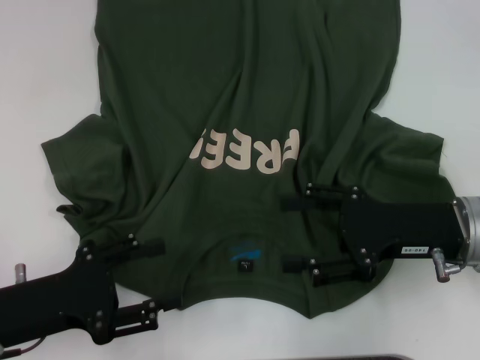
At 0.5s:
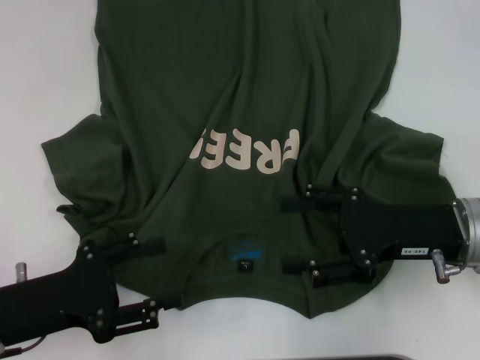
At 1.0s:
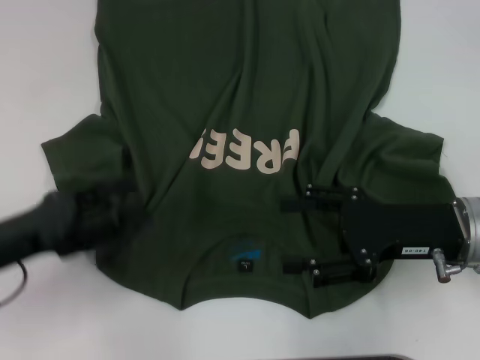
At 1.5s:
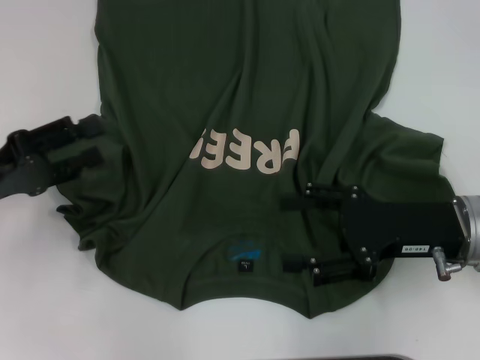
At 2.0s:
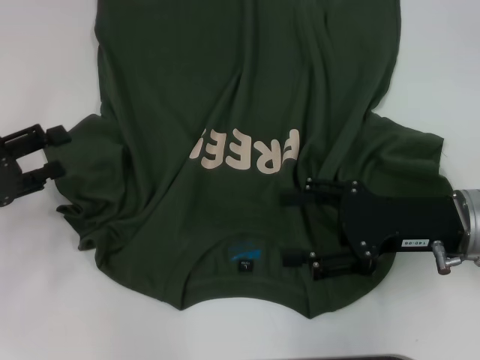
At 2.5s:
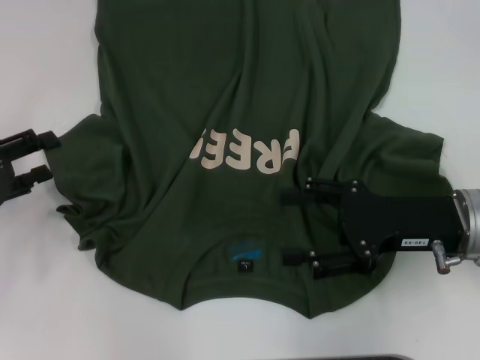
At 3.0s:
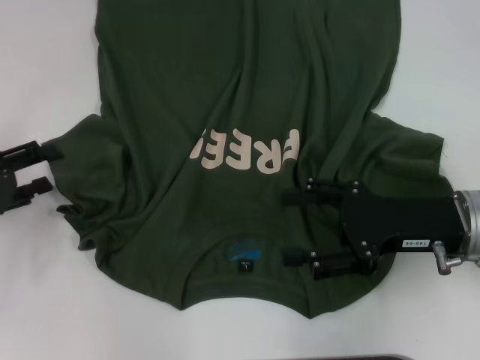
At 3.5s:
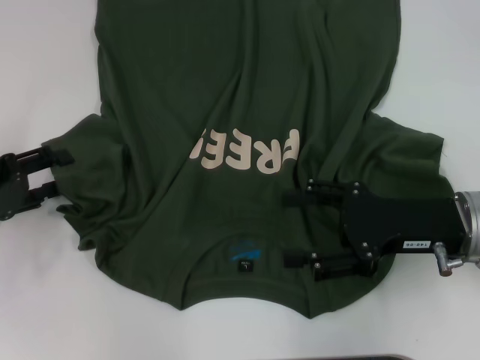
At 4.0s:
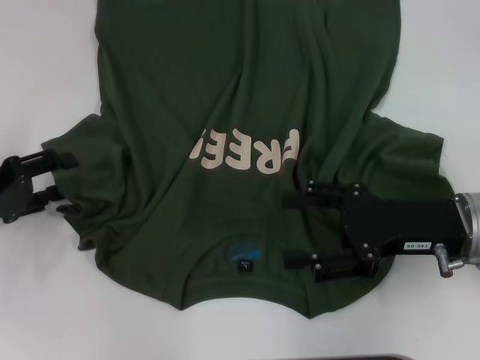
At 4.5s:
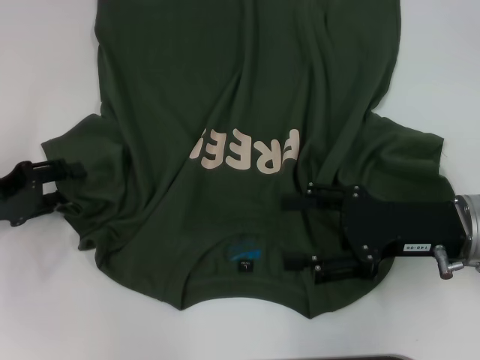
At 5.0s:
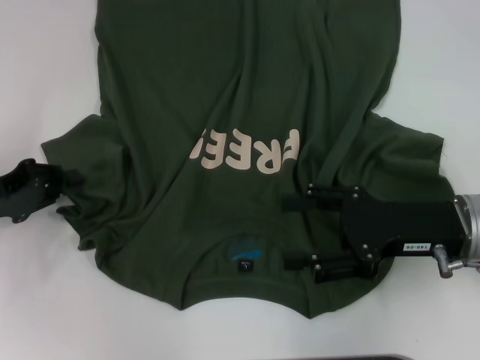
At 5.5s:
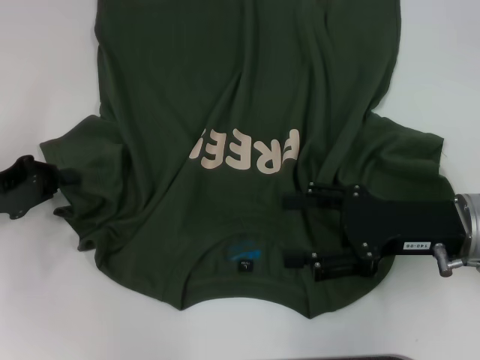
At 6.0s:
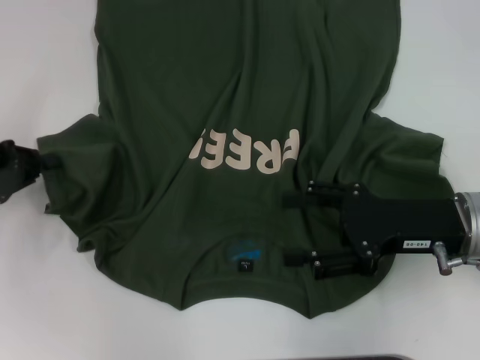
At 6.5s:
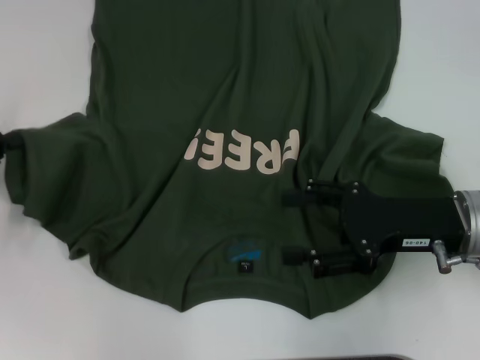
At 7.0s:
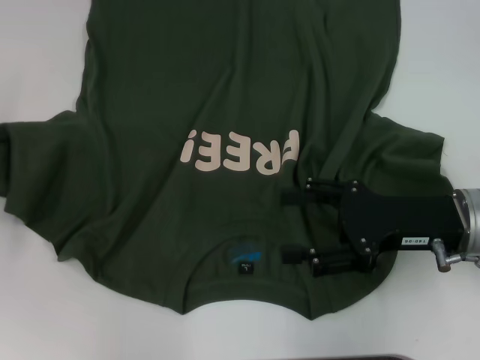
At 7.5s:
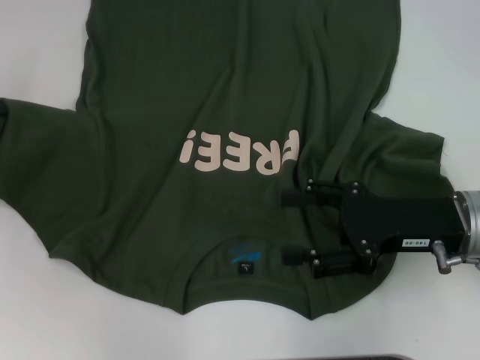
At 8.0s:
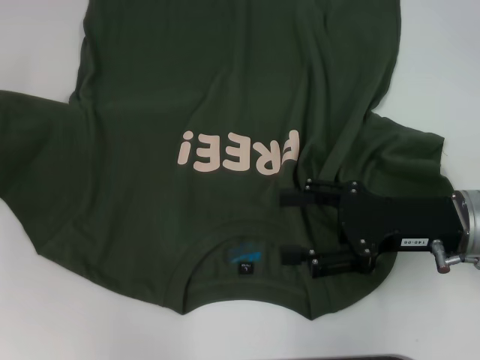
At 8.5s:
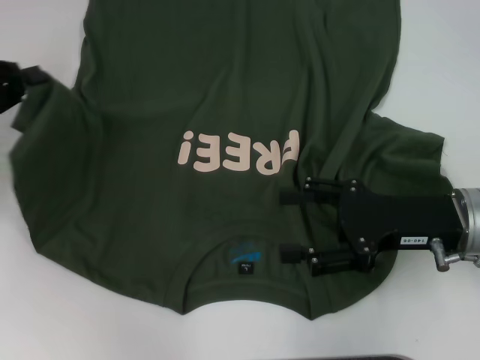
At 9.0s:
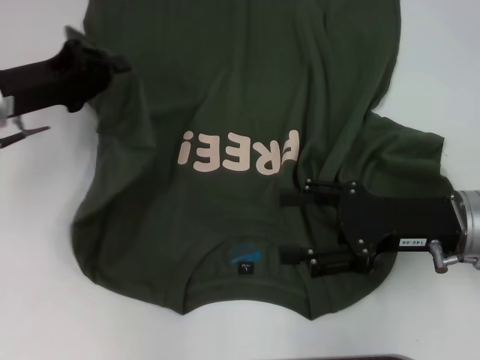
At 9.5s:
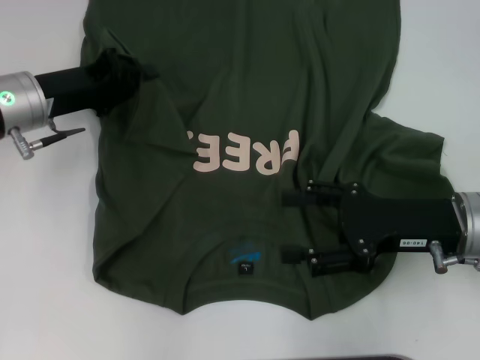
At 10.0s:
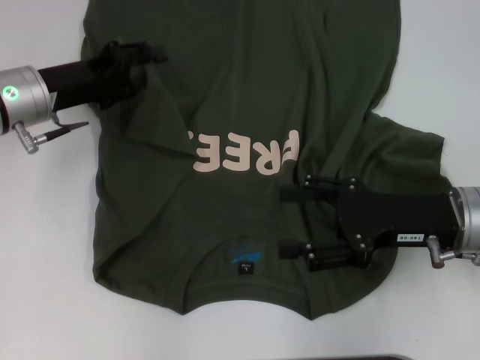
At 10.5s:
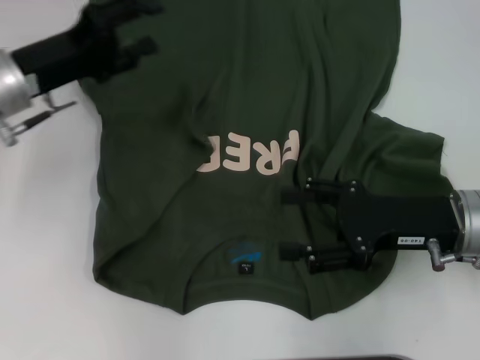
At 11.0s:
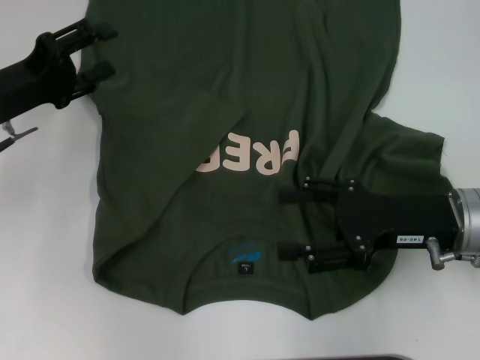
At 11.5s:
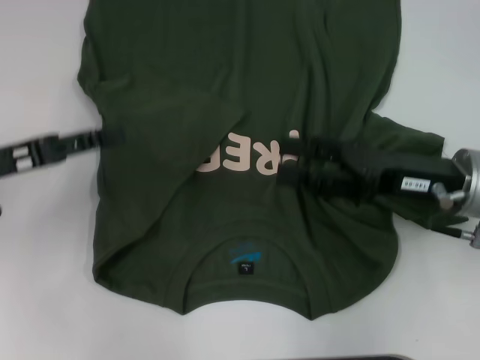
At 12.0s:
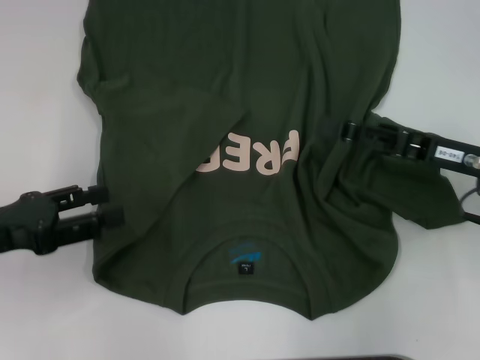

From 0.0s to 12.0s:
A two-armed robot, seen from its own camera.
Step, from 0.0s to 10.5s: Fold the bottom left sleeve with your left hand.
From 0.0s to 2.0s: The left gripper goes about 10 cm forward and to the left.
From 2.0s to 4.0s: The grippers move only a little.
From 4.0s to 6.0s: The left gripper closes up.
From 6.0s to 8.0s: The left gripper changes place by approximately 5 cm.
From 8.0s to 10.0s: The left gripper moves to the right, roughly 15 cm, and opens its fingers.
From 10.0s to 12.0s: The left gripper moves backward and to the left, about 15 cm, and opens up.

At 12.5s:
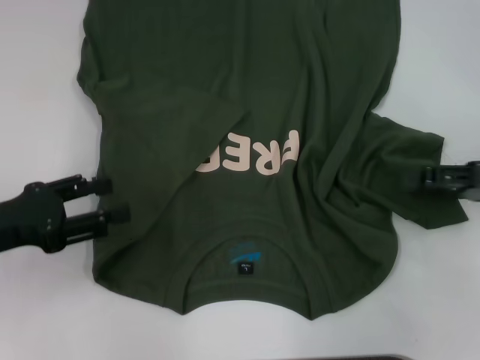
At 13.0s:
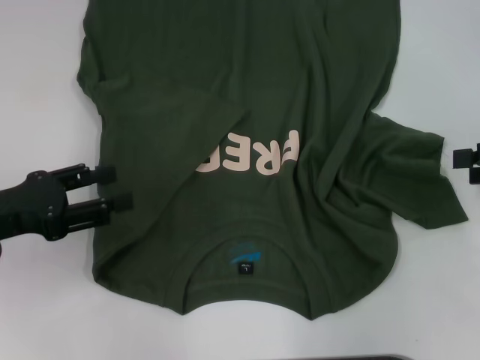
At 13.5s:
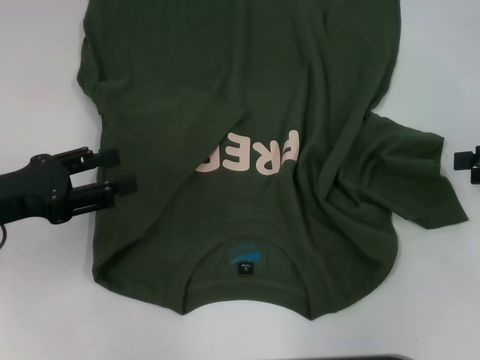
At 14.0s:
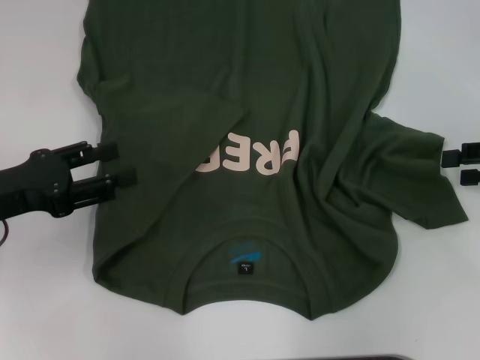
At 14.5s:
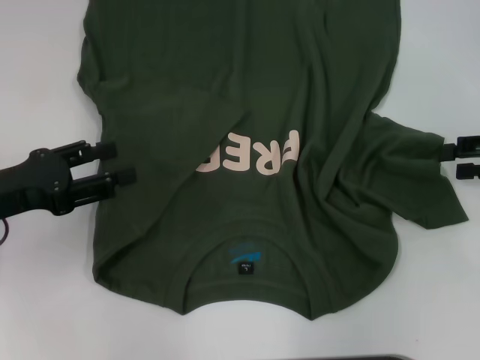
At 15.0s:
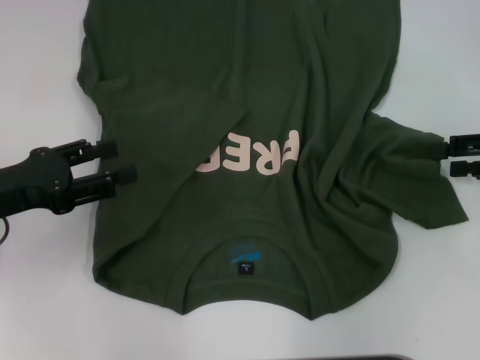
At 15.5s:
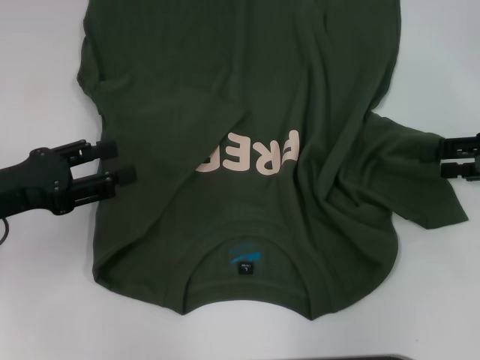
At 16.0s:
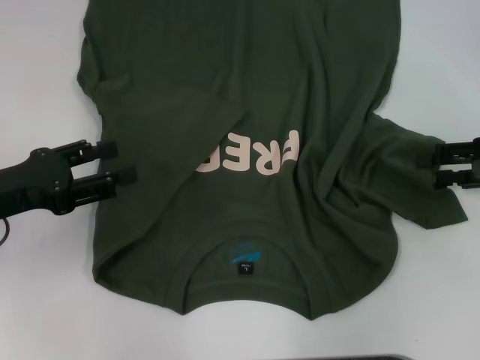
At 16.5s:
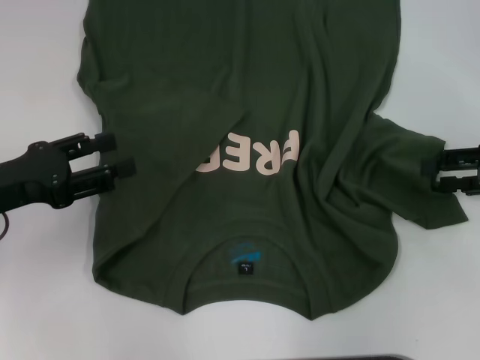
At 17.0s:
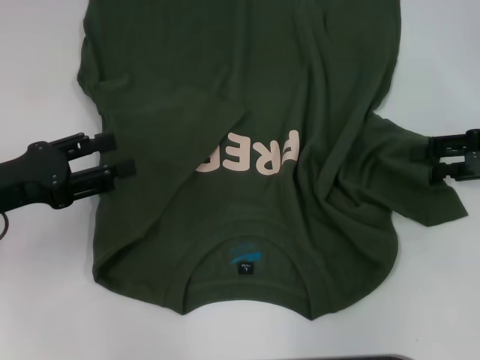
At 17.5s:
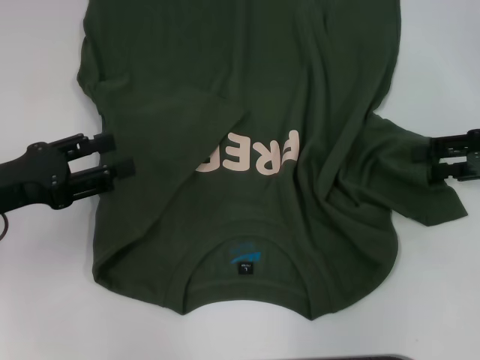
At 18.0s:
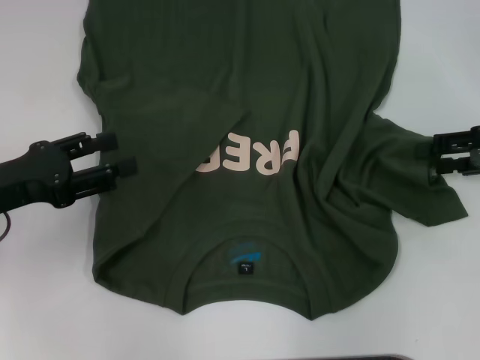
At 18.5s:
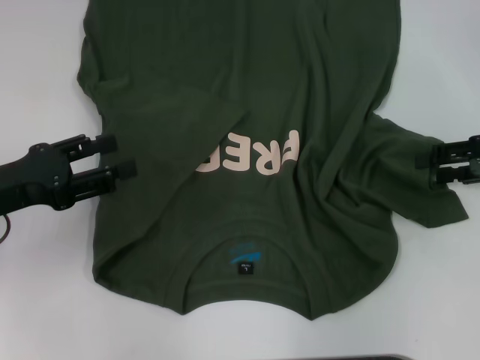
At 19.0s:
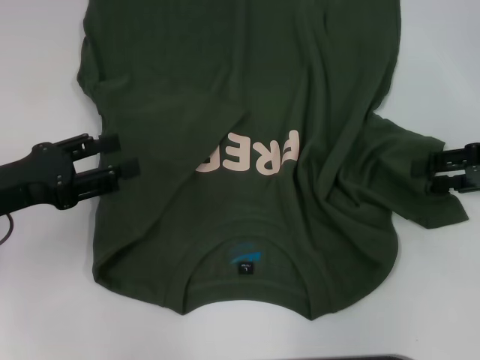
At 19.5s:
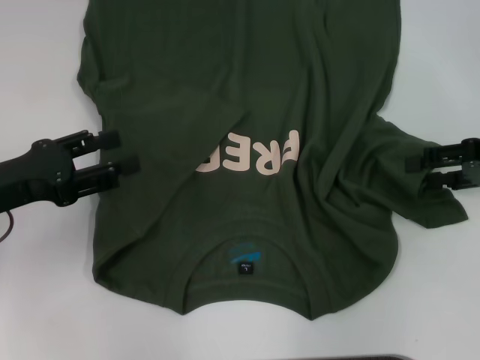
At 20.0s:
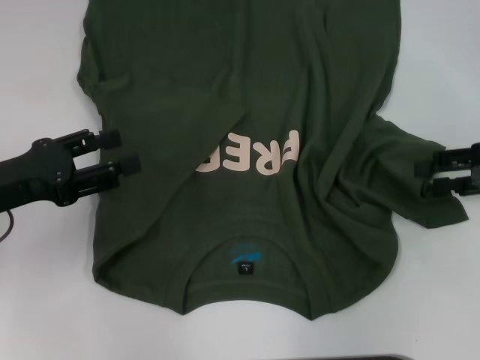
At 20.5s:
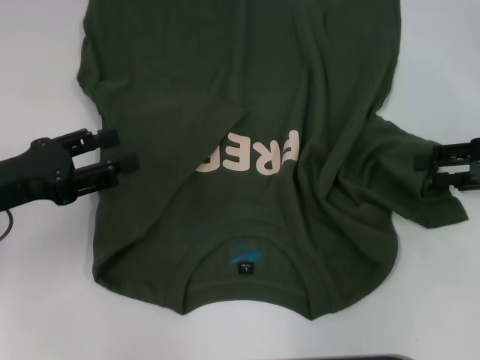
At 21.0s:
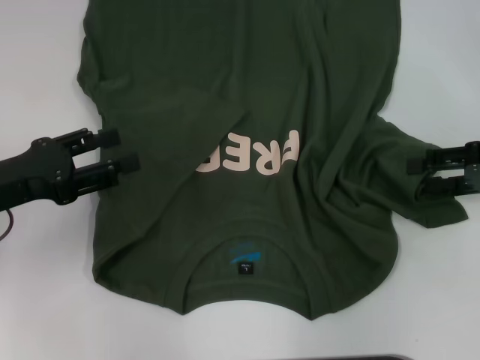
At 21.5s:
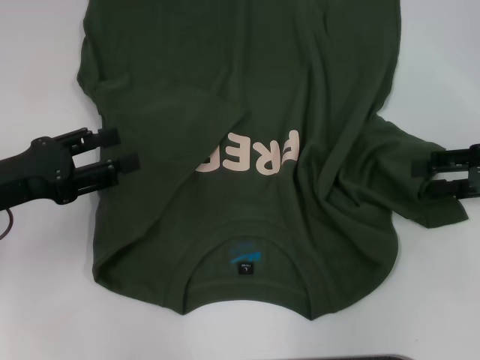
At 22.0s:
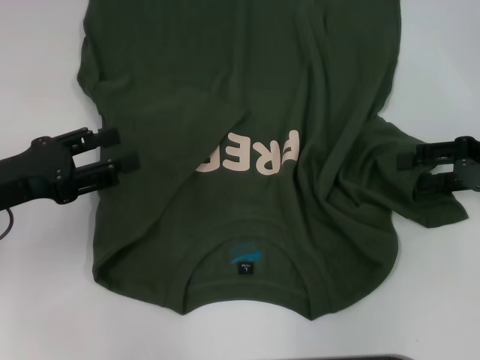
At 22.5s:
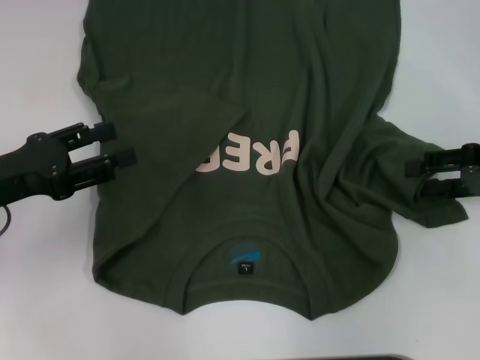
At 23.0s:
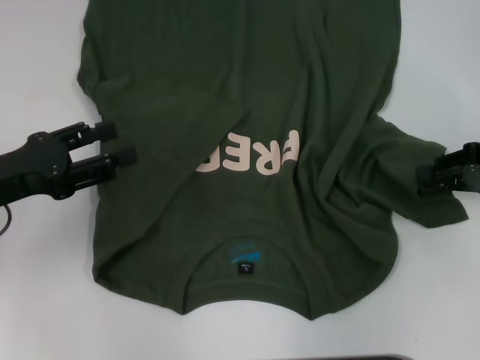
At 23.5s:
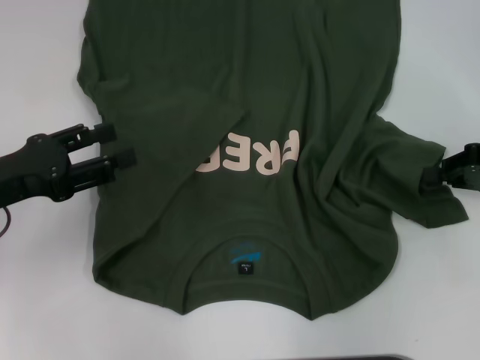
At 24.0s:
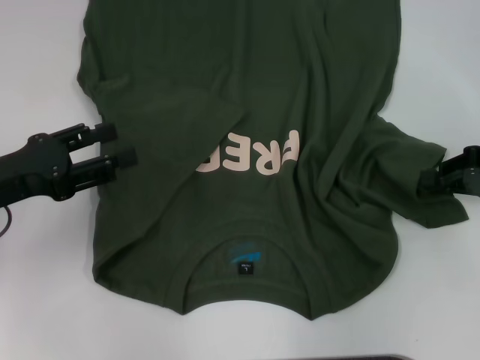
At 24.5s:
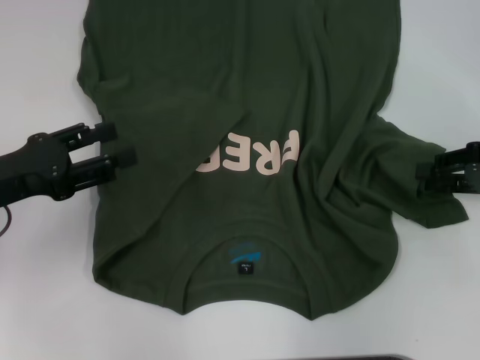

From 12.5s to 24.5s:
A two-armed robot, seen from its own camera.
From 12.5s to 20.5s: The grippers move only a little.
From 20.5s to 22.5s: Both grippers stay about where they are.

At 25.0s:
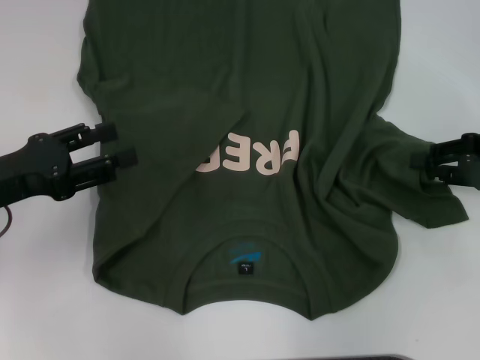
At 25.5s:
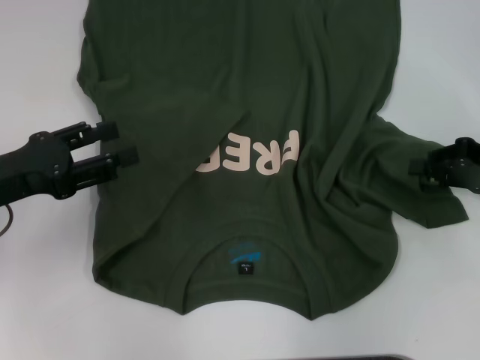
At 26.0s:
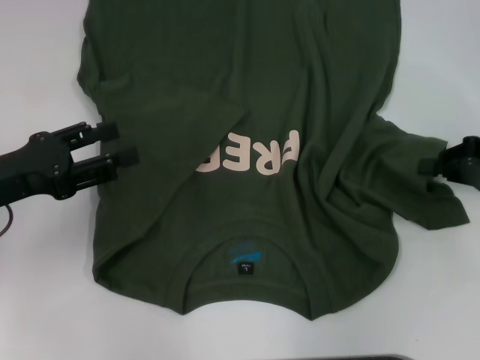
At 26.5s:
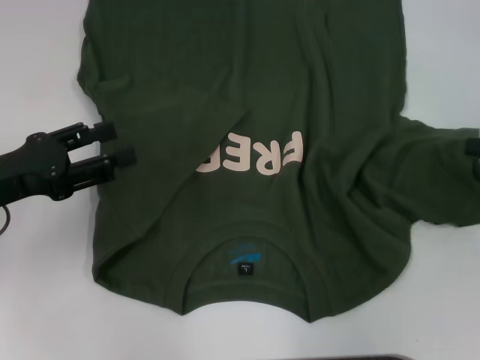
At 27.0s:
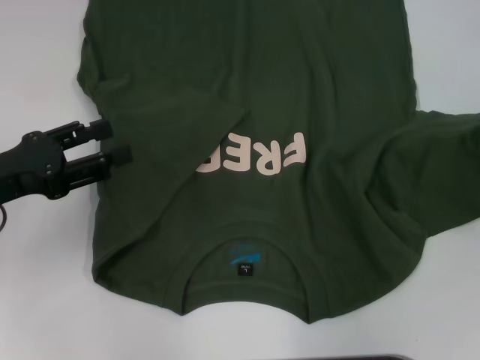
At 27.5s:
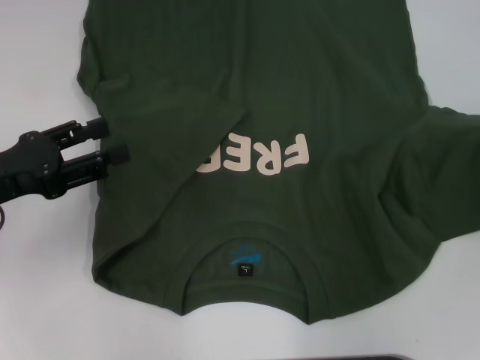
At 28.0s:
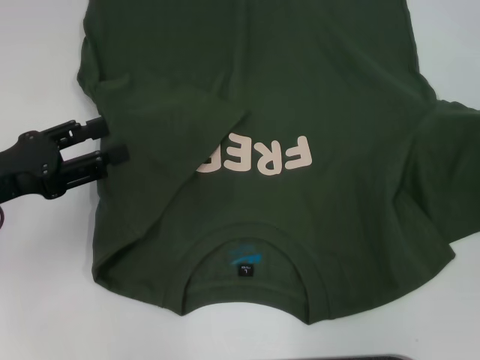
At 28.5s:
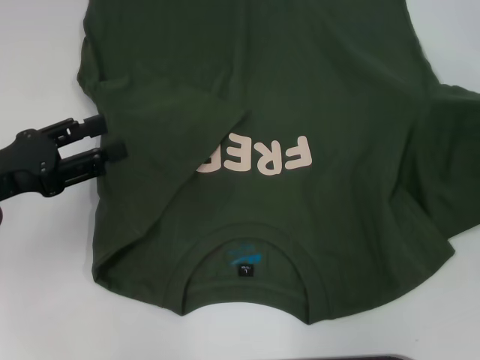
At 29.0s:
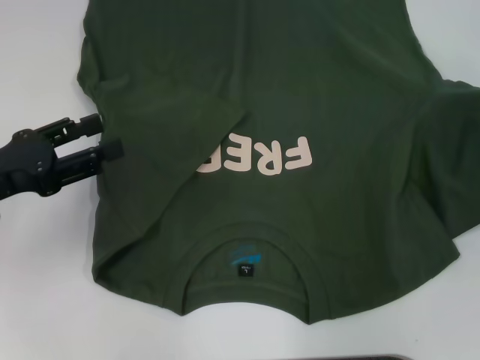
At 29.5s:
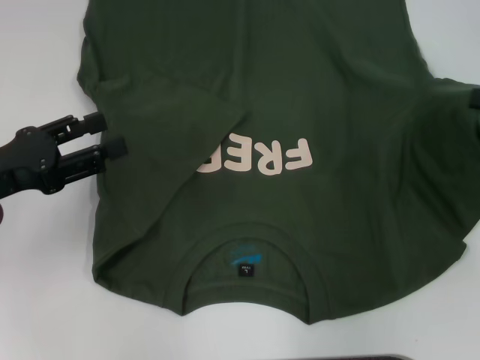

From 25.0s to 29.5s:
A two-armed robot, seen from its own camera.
From 25.0s to 27.0s: The right gripper is displaced to the right by about 5 cm, and closes its fingers.
From 27.0s to 29.5s: The grippers make only small movements.
